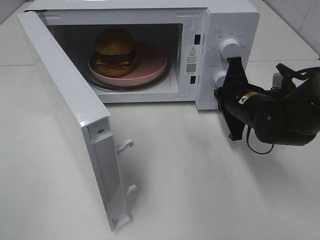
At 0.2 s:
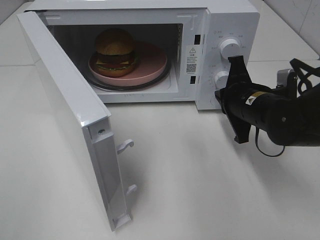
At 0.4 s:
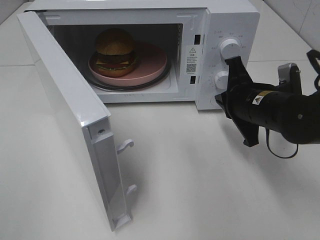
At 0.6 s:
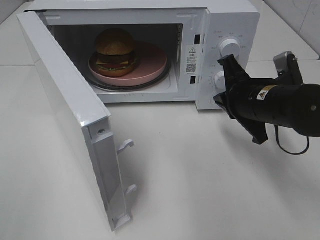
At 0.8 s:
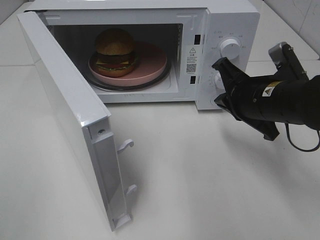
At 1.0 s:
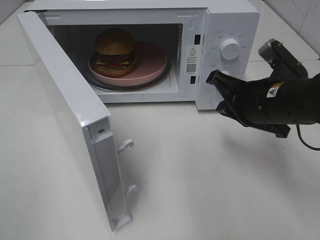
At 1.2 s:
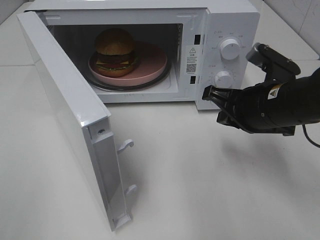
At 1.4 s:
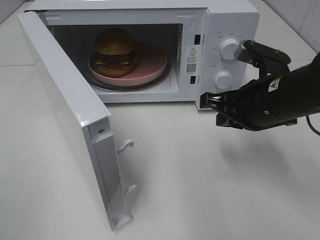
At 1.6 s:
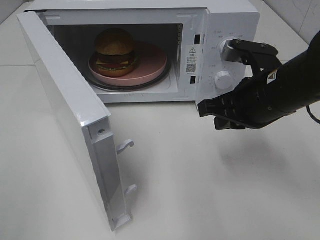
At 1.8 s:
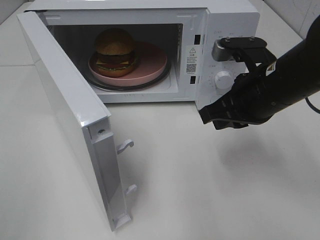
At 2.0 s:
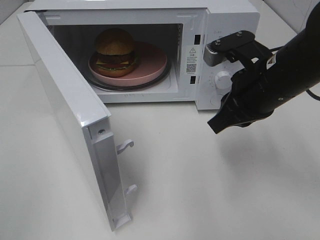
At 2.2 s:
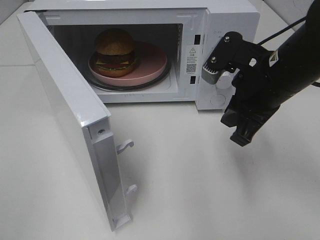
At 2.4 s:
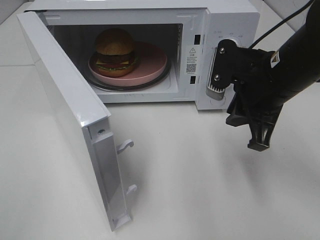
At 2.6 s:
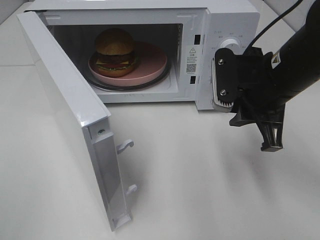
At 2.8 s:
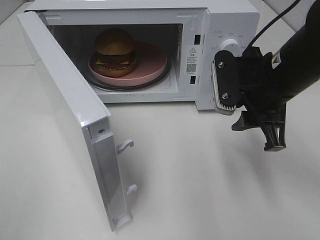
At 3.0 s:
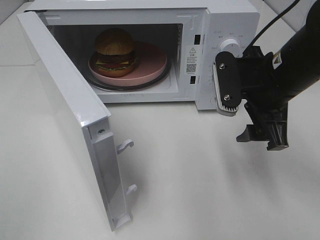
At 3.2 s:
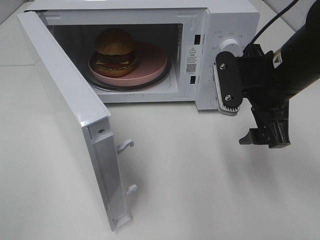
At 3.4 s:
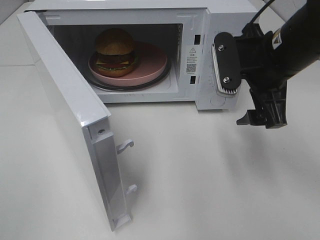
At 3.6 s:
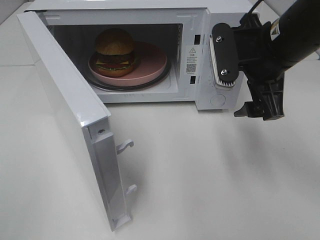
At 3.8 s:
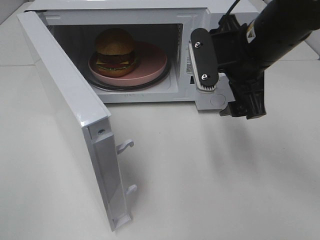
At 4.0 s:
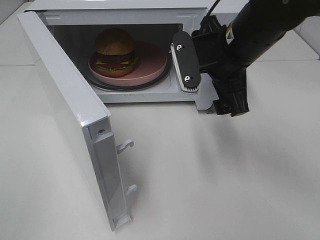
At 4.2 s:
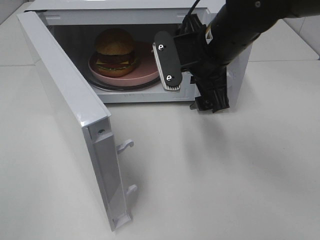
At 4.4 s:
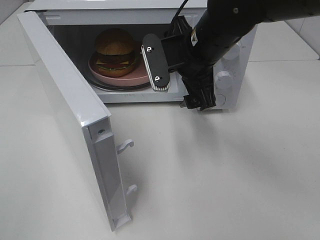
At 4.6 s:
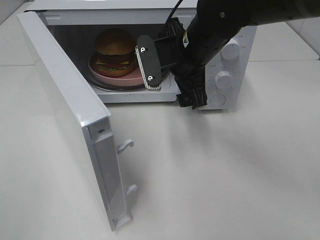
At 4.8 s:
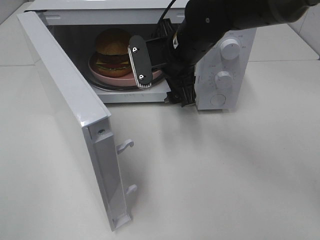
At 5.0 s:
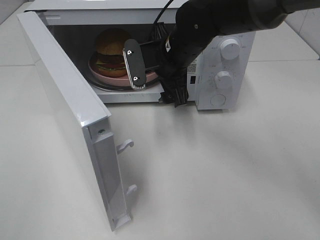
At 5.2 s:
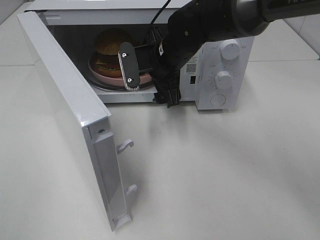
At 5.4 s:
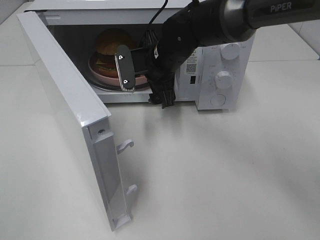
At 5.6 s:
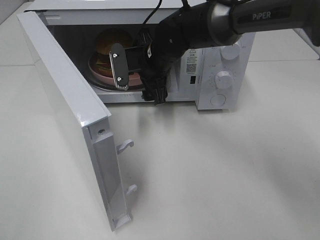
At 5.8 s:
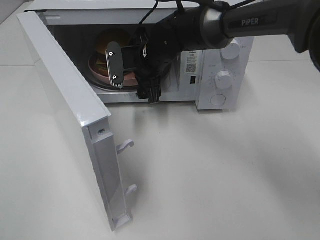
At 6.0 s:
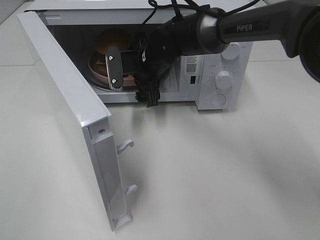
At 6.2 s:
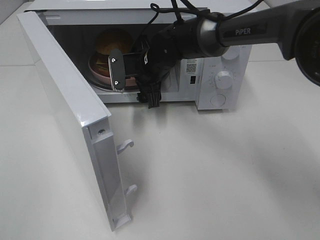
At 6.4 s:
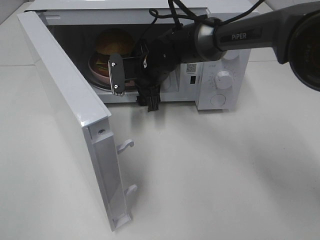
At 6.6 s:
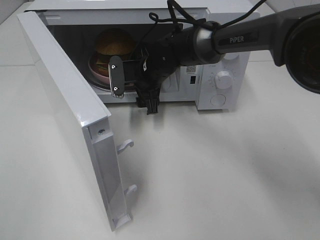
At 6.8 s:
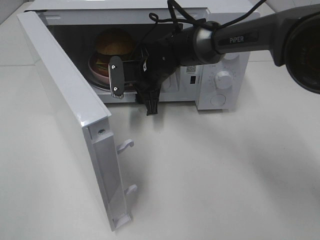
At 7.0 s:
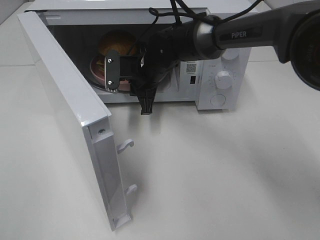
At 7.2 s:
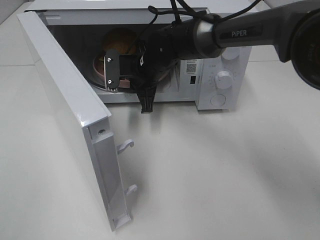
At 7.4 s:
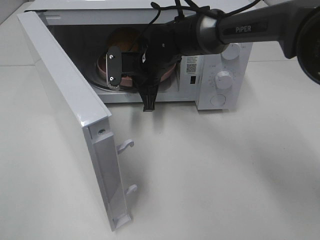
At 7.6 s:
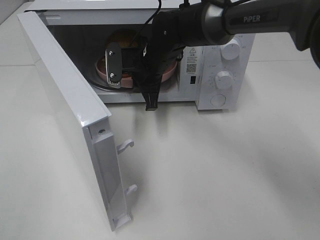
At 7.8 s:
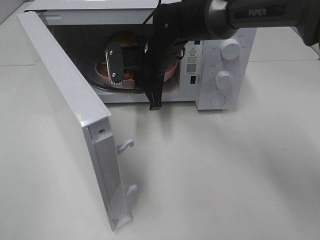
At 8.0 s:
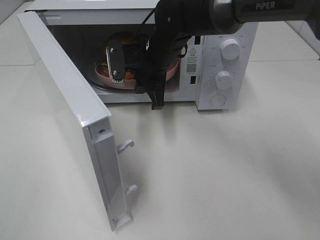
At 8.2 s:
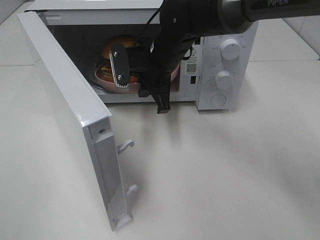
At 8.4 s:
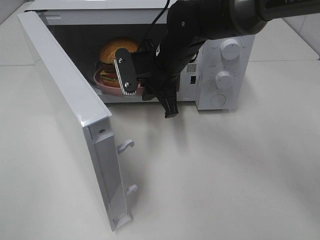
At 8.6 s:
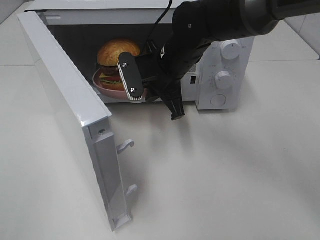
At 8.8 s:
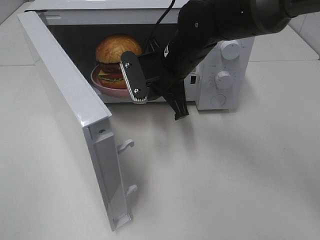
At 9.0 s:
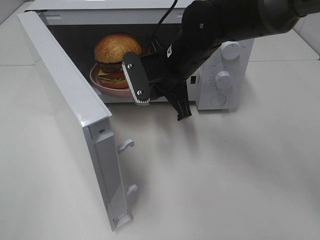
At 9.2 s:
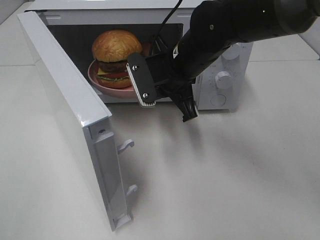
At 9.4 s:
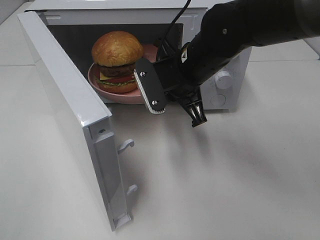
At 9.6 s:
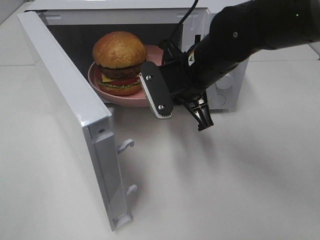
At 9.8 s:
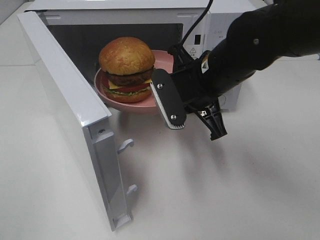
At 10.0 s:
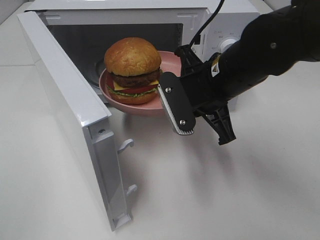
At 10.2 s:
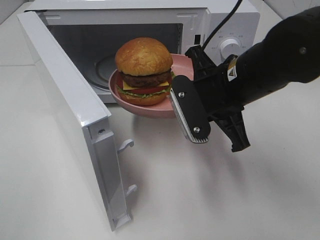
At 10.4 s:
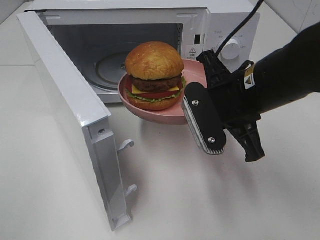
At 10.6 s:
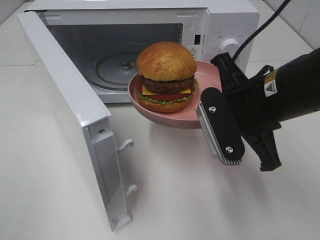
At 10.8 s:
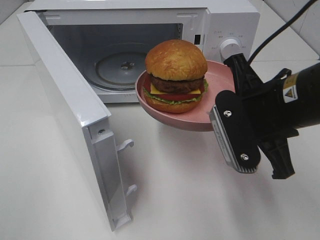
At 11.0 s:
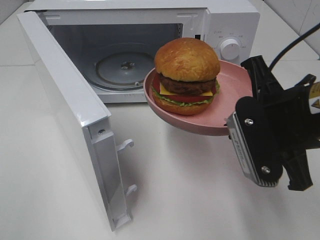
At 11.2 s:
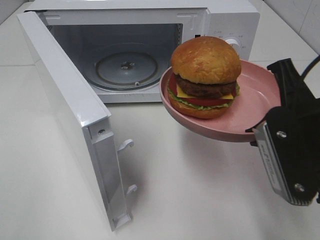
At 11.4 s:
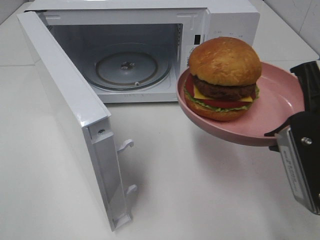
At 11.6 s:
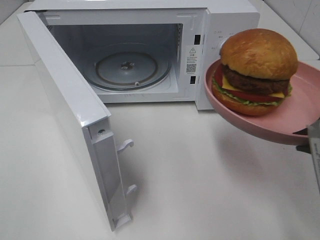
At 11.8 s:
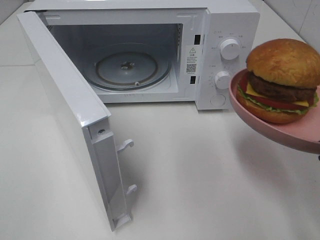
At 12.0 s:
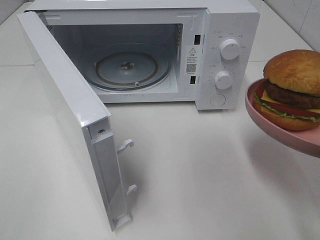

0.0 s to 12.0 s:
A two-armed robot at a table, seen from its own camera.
Task of the whole recording: Heat the burger.
Step, 0.0 to 7.0 s: Right hand: grab the plate with the hamburger.
0.0 to 1.6 s: The right gripper travels upward and backward by some 10 cm.
1.6 to 3.0 s: The right gripper opens its fingers.
3.0 to 4.4 s: The right gripper is displaced to the left and forward by approximately 10 cm.
4.4 to 6.0 s: The right gripper shifts roughly 15 cm forward, downward and to the left.
6.0 to 7.6 s: The right gripper closes up.
7.6 to 9.0 s: The right gripper shifts some 5 cm backward.
9.0 to 10.4 s: The right gripper moves backward and to the right, roughly 15 cm.
10.4 to 12.0 s: The right gripper is displaced backward and to the right by approximately 15 cm.

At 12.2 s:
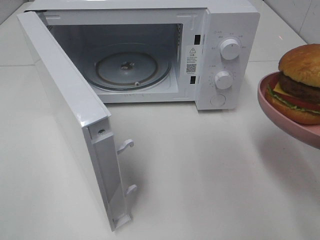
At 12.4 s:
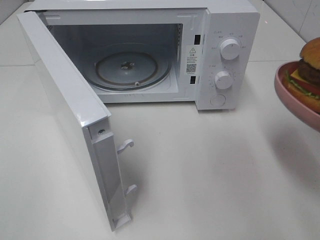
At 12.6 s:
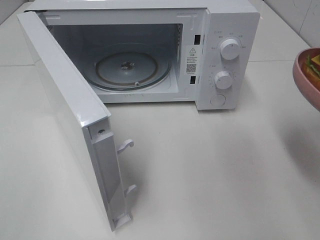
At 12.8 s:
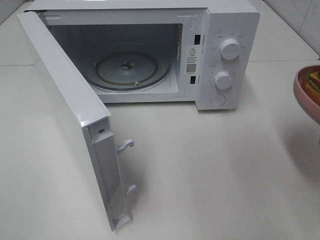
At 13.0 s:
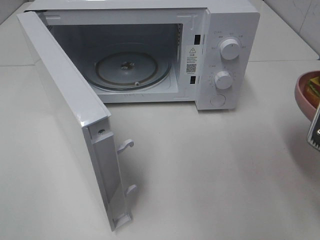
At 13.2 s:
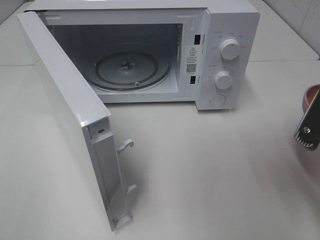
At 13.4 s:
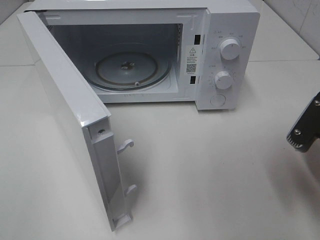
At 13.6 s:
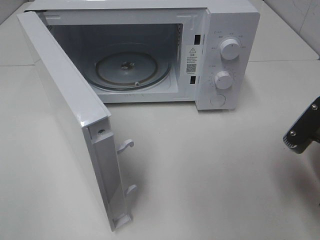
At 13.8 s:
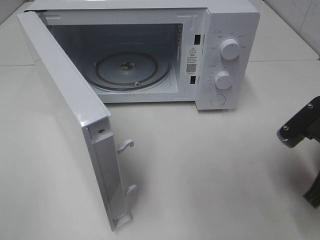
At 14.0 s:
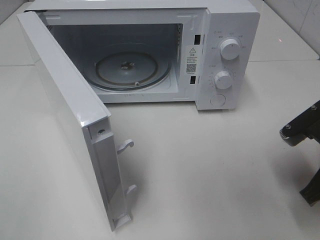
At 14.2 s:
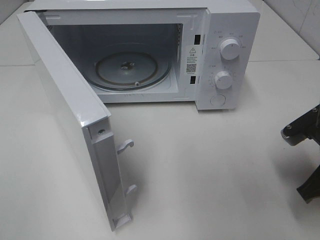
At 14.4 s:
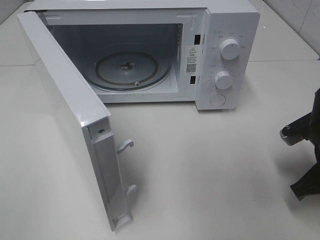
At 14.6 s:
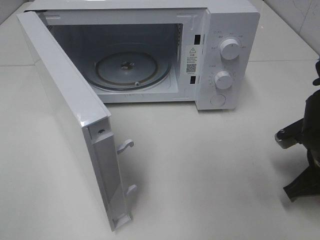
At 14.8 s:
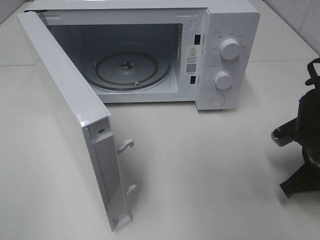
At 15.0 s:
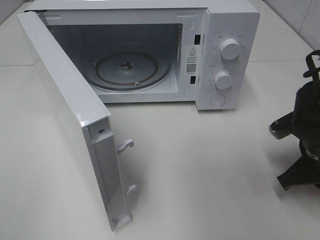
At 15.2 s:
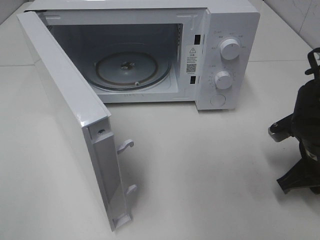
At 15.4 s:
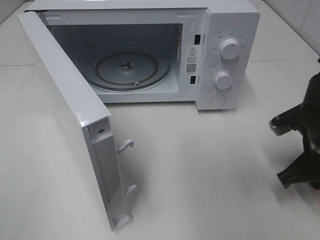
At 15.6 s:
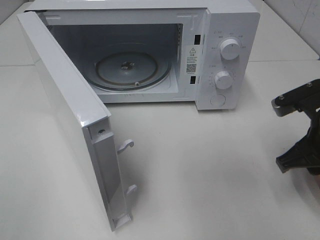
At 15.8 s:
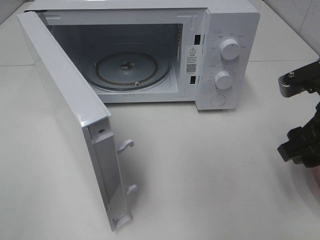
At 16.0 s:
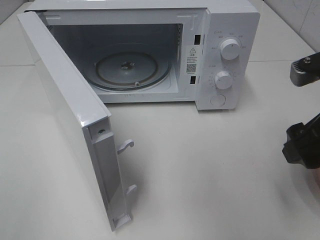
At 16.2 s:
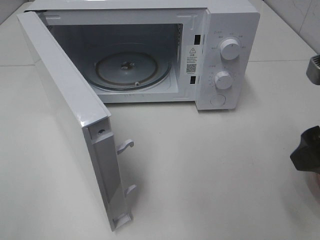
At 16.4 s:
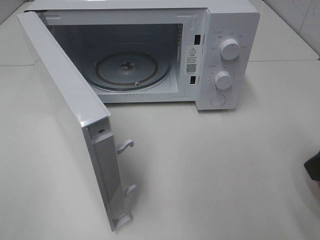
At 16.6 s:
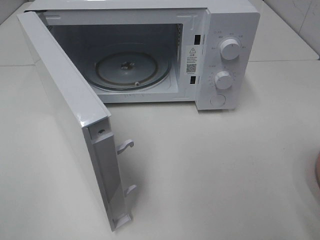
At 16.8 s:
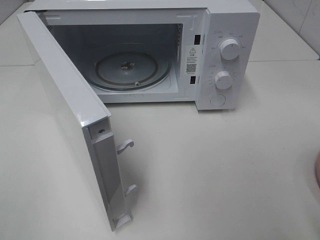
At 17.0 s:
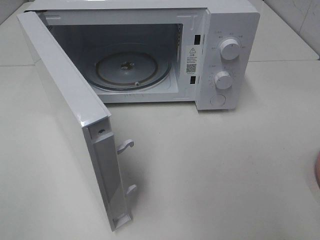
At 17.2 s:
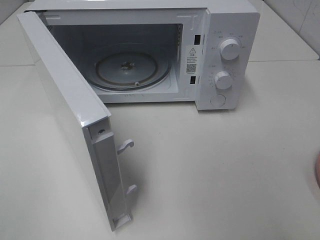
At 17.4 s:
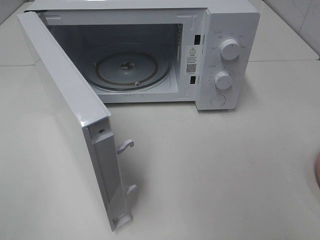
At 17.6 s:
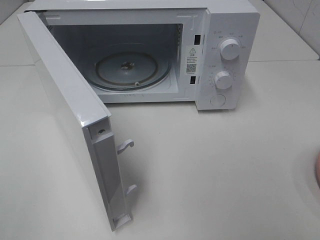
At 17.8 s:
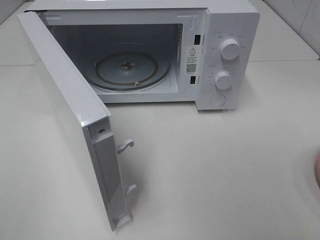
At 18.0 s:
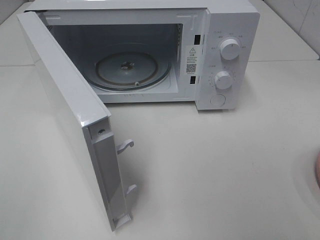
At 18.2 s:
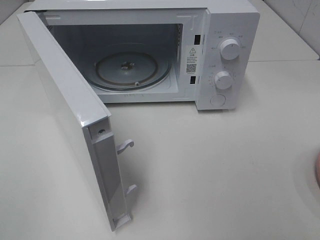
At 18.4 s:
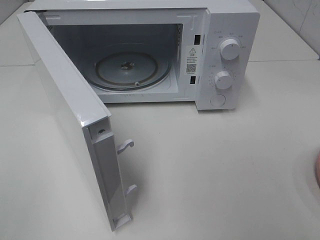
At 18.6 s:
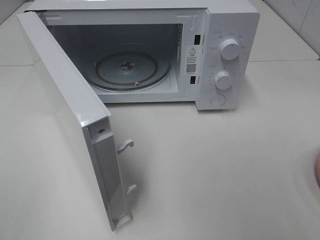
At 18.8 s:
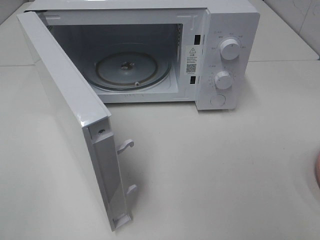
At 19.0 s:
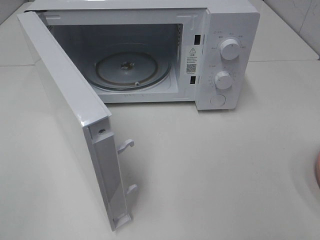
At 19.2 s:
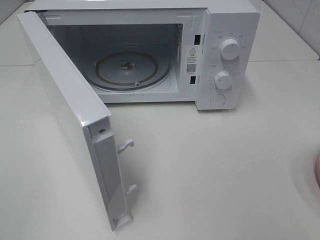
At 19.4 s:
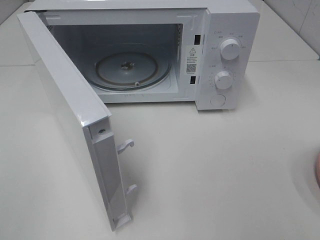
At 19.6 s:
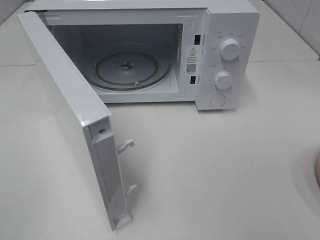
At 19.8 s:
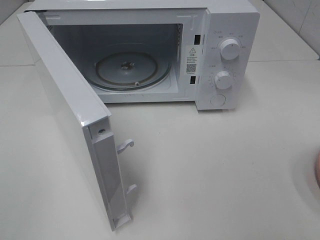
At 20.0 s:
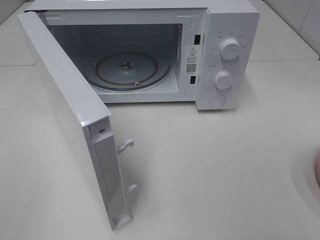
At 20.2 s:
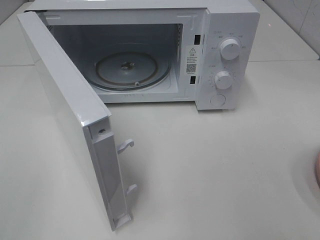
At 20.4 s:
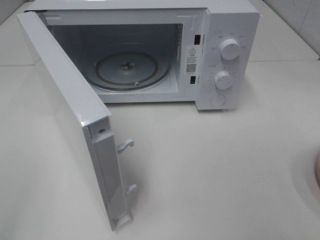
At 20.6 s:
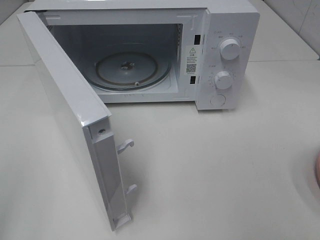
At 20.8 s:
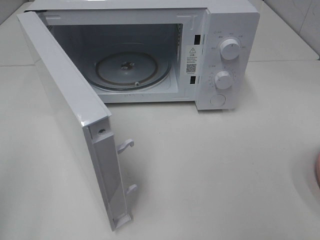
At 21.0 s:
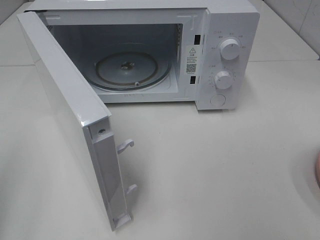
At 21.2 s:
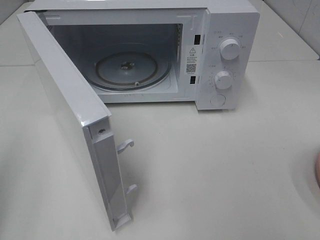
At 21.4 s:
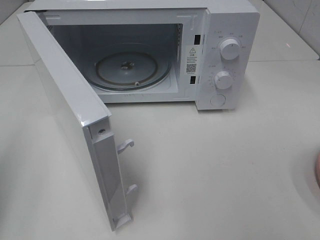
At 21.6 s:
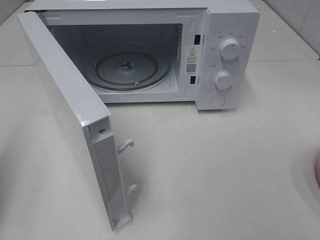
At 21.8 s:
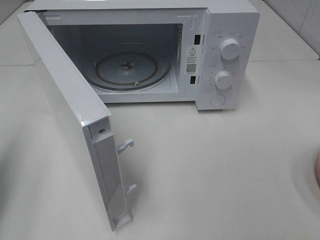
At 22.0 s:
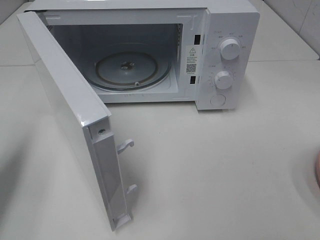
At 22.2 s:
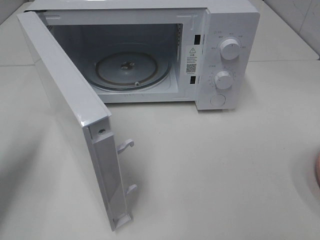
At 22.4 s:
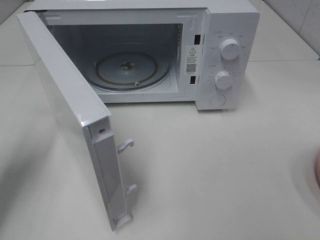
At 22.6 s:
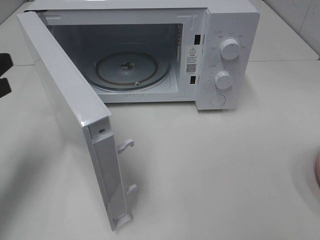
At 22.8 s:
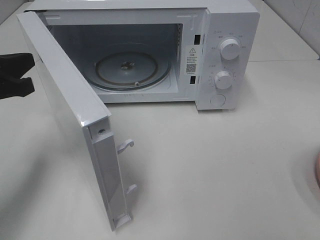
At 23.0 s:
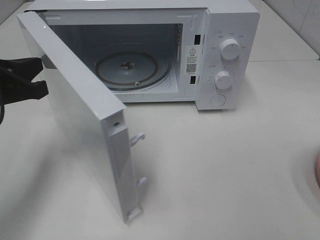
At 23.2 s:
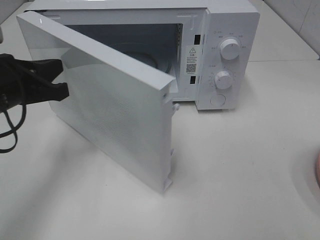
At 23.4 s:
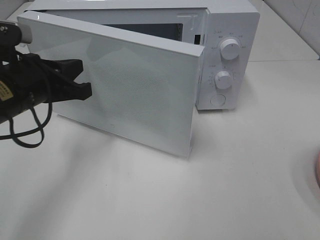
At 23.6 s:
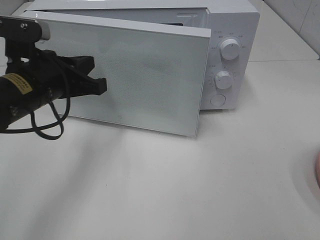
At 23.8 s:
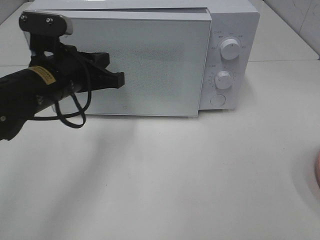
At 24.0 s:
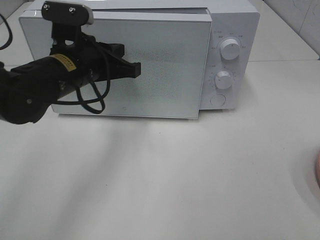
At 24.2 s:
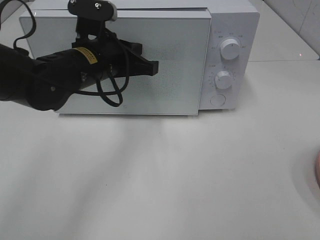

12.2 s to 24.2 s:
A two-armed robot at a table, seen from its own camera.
Task of the whole recording: Heat the burger.
Step, 12.2 to 15.0 s: Right hand: place the plate on the table.
12.2 to 13.8 s: The right gripper heads downward and forward, covering about 10 cm.
13.8 to 15.2 s: The right gripper is displaced downward by roughly 5 cm.
15.2 to 16.6 s: The right gripper travels upward and backward by roughly 20 cm, and opens up.
18.2 to 19.8 s: The two grippers keep their place.
21.2 to 22.6 s: The left gripper is displaced forward by approximately 15 cm.
22.6 to 24.2 s: The left gripper heads to the right and forward, covering some 20 cm.
